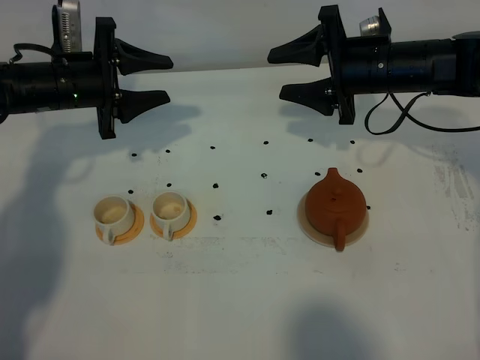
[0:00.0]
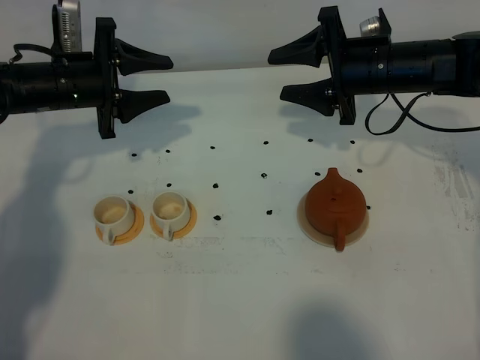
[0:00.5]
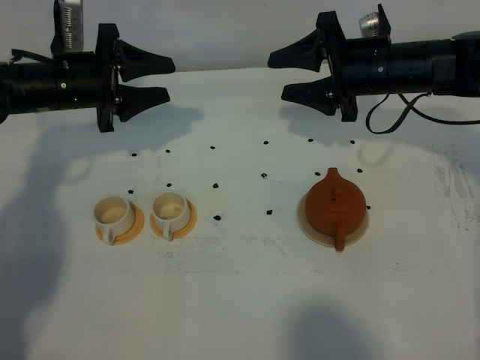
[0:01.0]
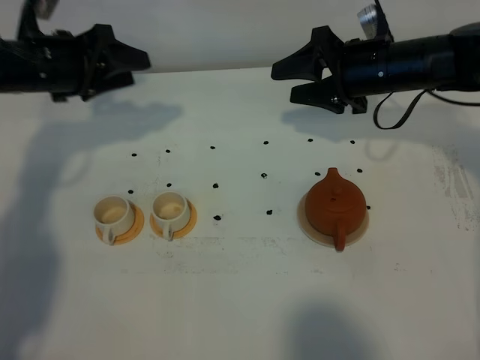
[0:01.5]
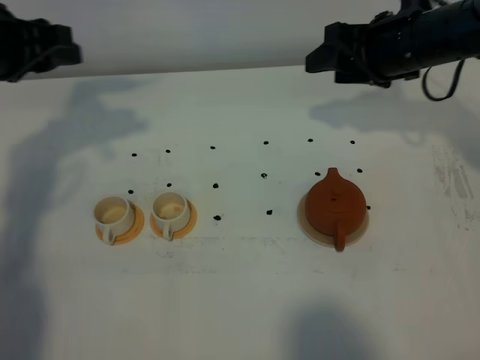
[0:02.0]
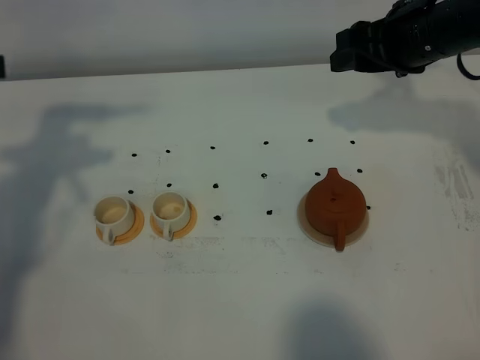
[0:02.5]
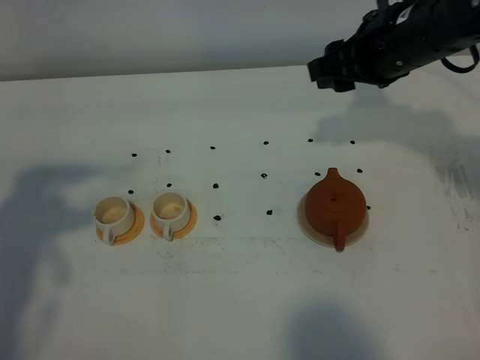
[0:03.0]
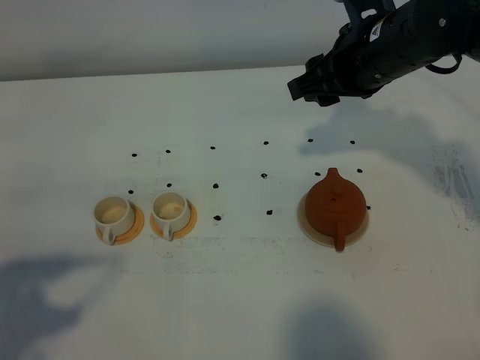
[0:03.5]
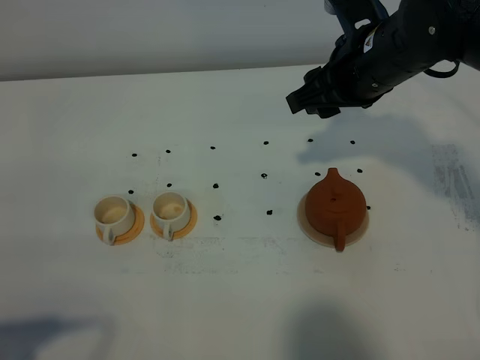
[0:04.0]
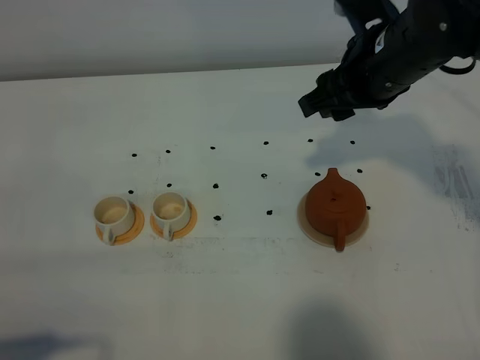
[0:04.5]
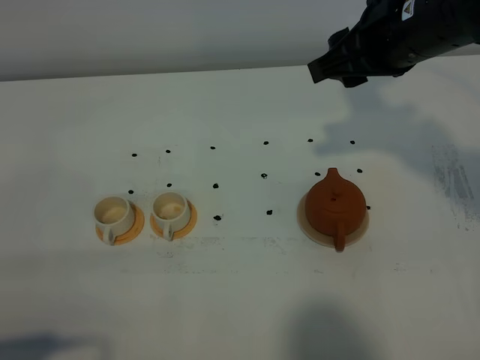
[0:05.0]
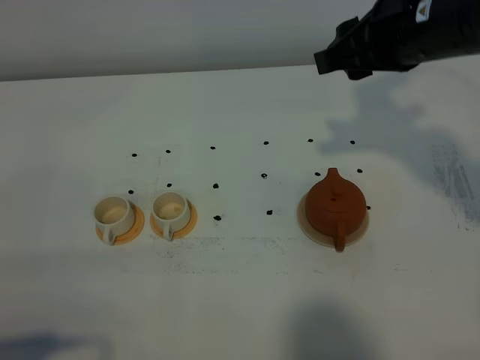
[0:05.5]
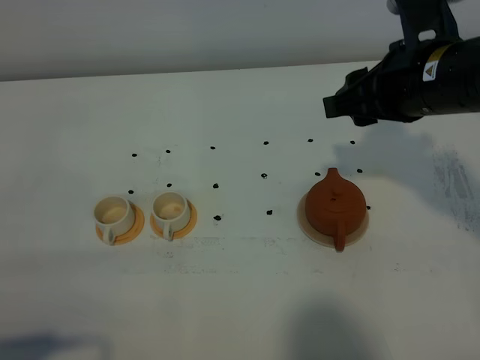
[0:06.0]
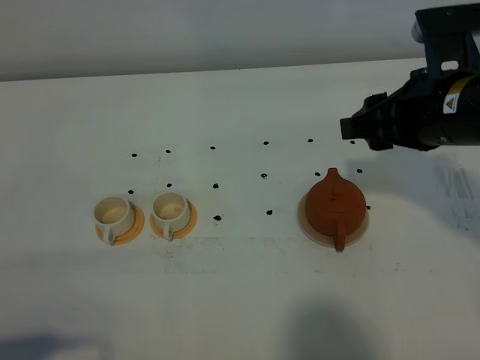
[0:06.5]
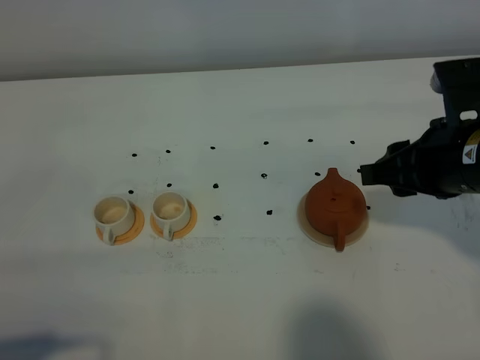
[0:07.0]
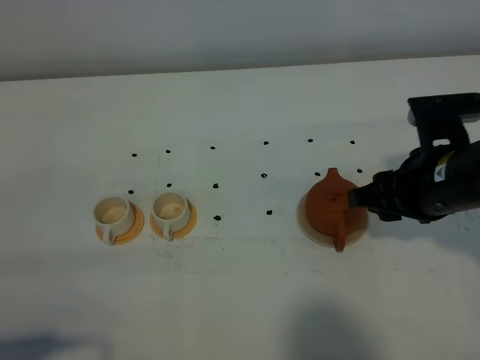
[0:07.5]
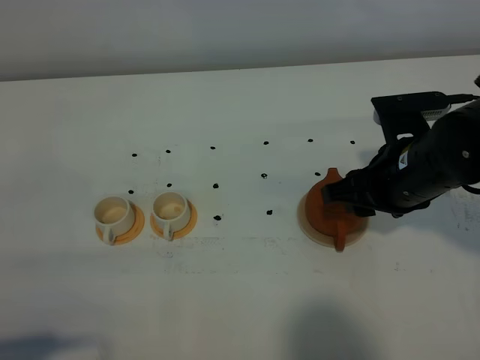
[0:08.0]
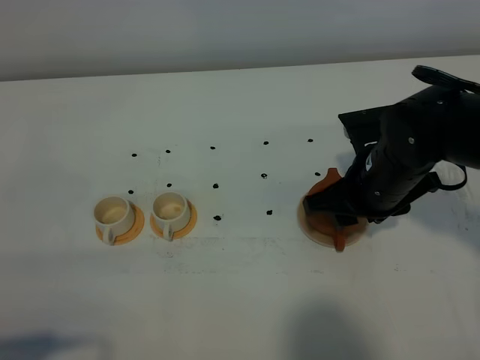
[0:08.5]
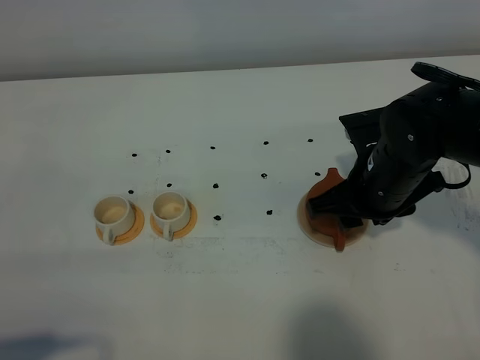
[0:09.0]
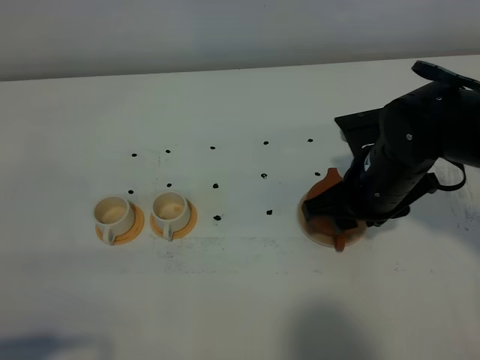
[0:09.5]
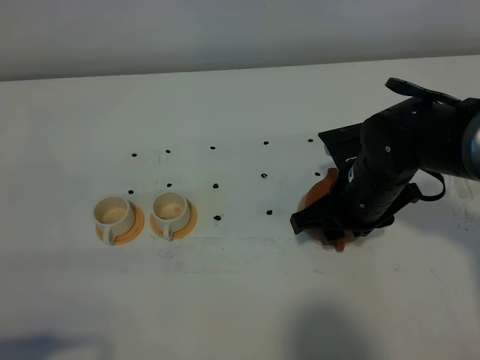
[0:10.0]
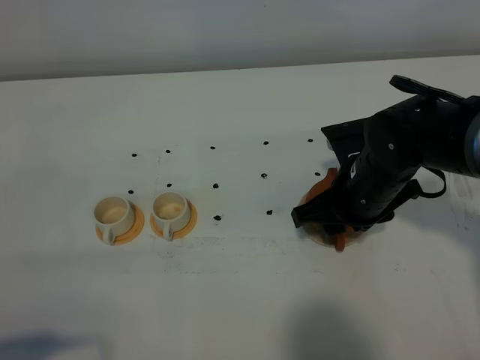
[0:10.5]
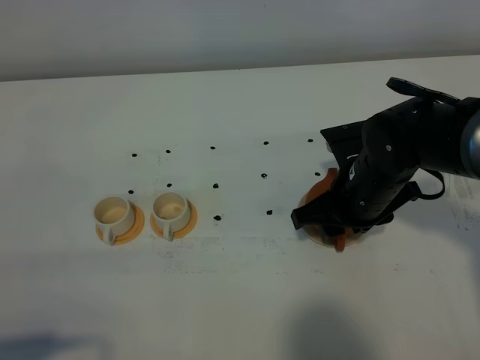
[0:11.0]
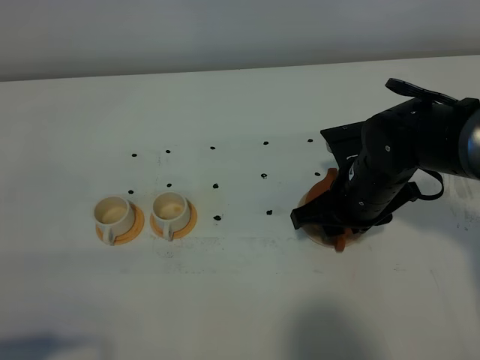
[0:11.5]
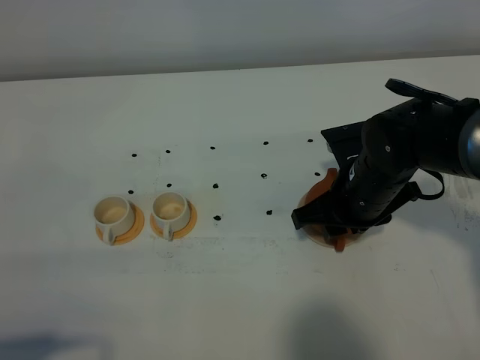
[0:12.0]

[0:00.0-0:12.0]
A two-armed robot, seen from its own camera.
Task of the whole recording: grasp the brown teapot and pour the tea into the two white teacups one by one, put the brown teapot back in its original place.
0:00.0 to 0:02.0: The right gripper ends up some 5 cm from where it was. The left gripper moves upward and backward, some 15 cm, and closes up.
0:02.0 to 0:04.0: The right gripper moves to the left and backward, some 10 cm. The left gripper travels backward by approximately 35 cm, and closes its fingers.
0:04.0 to 0:06.0: The right gripper moves backward, about 5 cm.
0:06.0 to 0:08.0: The right gripper is displaced downward by approximately 10 cm.
0:08.0 to 0:10.0: The right gripper ends up some 5 cm from where it was.
0:10.0 to 0:12.0: Both grippers stay about where they are.

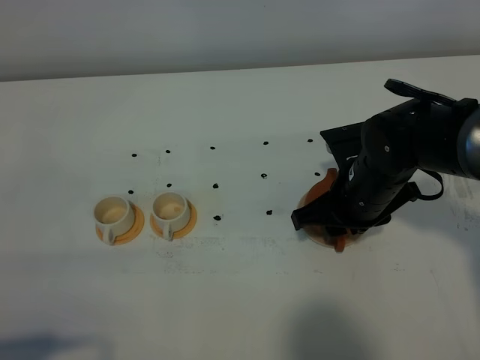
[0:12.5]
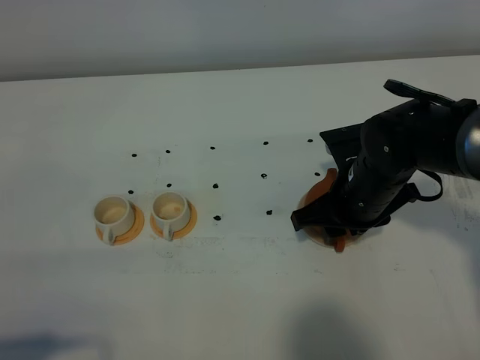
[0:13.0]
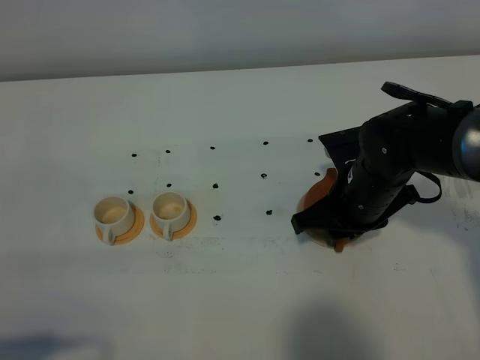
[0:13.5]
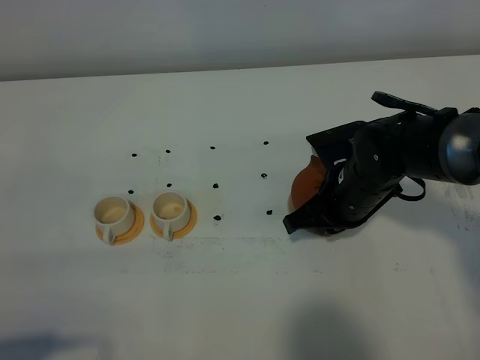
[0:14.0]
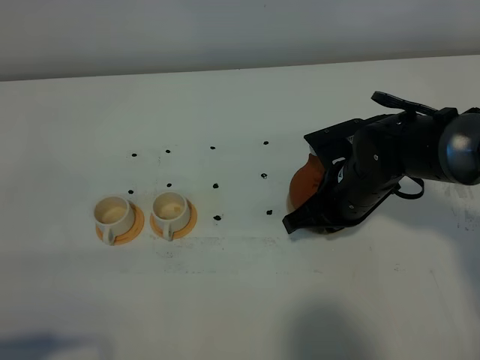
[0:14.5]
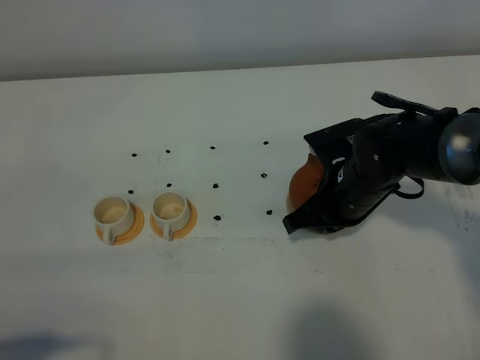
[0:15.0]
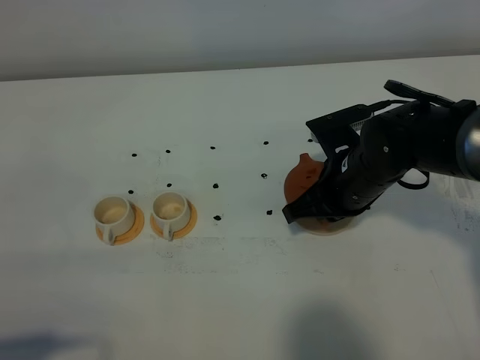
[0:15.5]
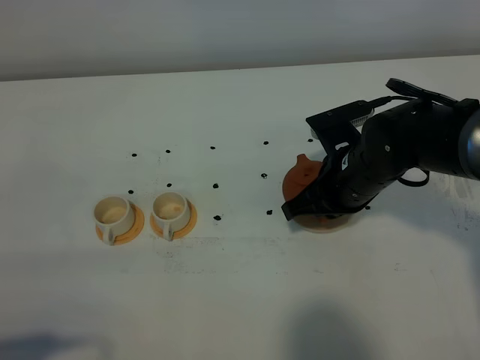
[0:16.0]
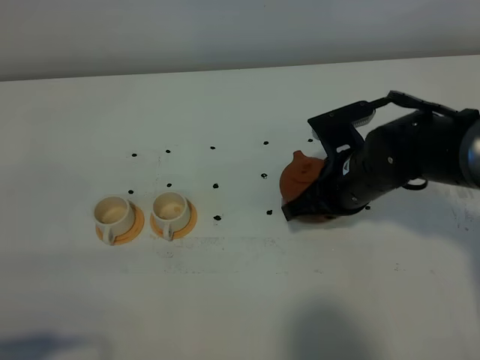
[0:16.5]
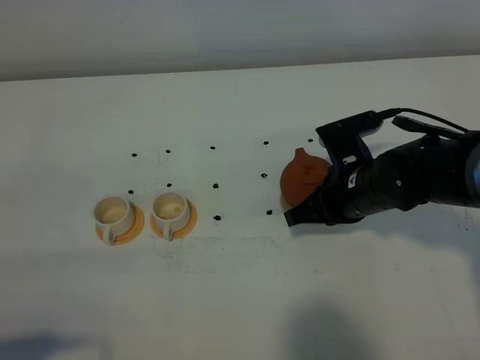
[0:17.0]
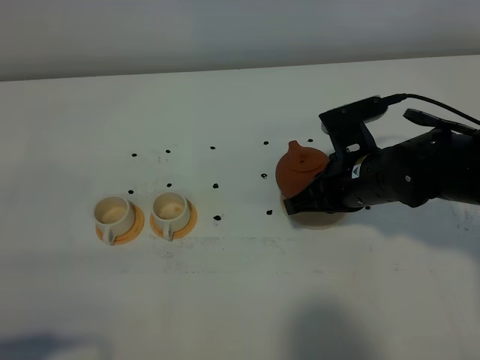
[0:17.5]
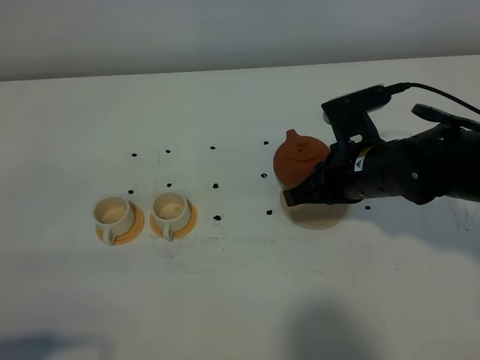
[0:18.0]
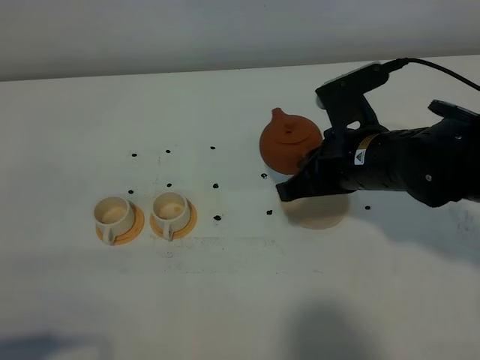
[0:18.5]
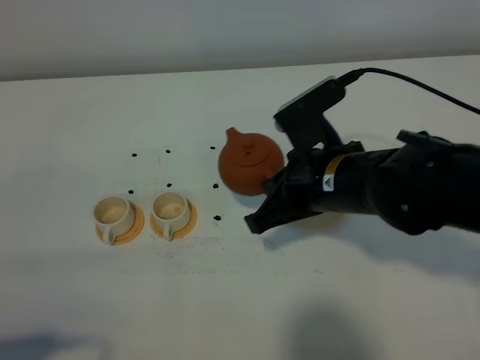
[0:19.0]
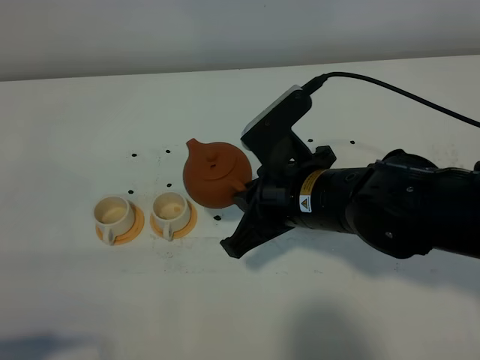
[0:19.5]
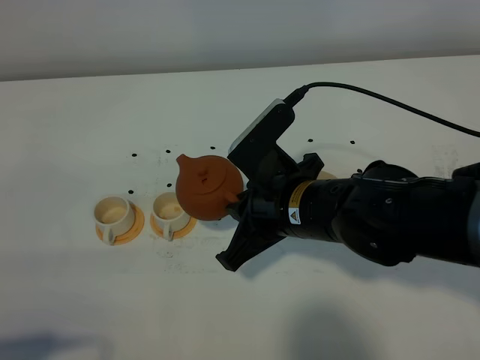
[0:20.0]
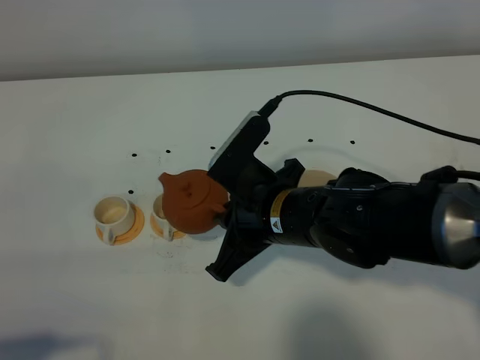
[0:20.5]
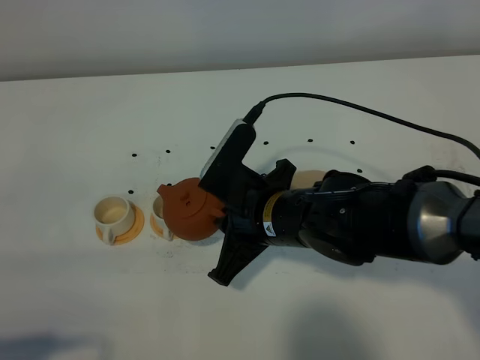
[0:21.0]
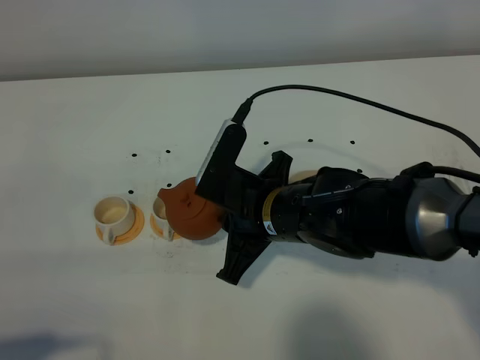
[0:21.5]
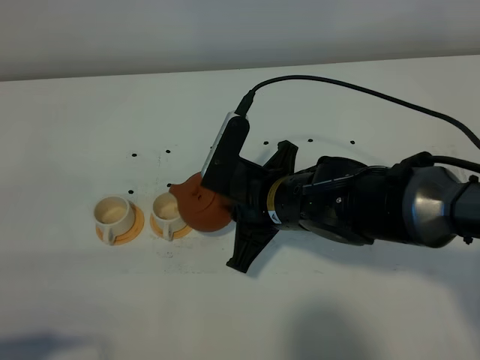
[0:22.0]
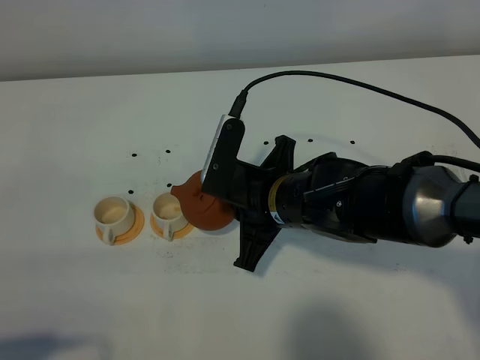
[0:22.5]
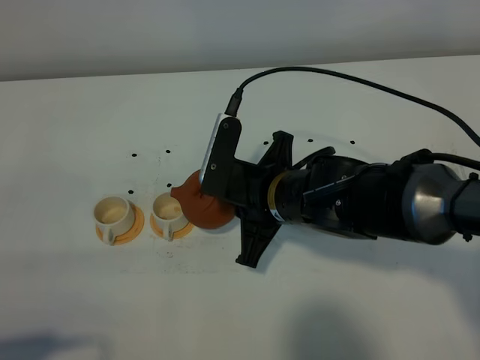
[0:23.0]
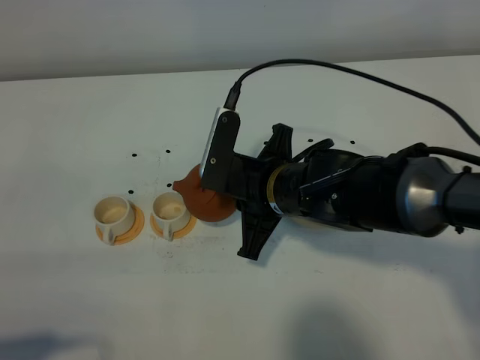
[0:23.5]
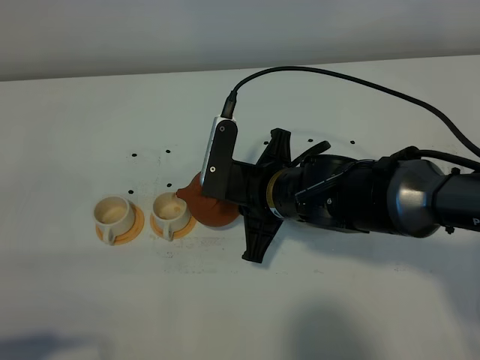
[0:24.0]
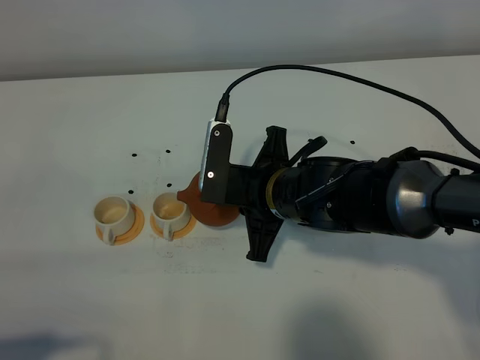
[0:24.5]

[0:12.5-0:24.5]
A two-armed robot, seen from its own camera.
Task of the whole recording: grasp the brown teapot and pour the tea into the two white teacups one by one, put the brown teapot back in its original place.
Step, 0:12.5 to 0:17.5: Pick up the teapot with the right gripper.
0:12.5 to 0:14.5: The right gripper closes up.
0:14.5 to 0:16.5: There are only small adjustments of the grippers.
0:16.5 to 0:18.5: The right gripper moves upward, some 5 cm.
0:18.5 to 0:20.5: The right gripper heads to the left, covering some 10 cm.
0:22.5 to 0:24.5: The grippers make only small movements.

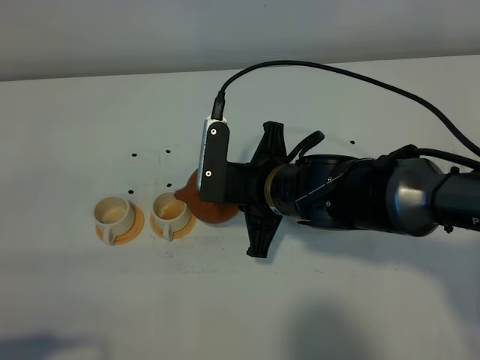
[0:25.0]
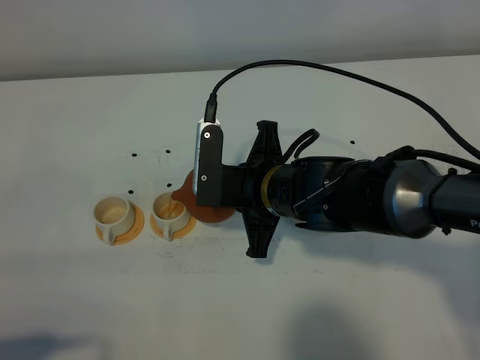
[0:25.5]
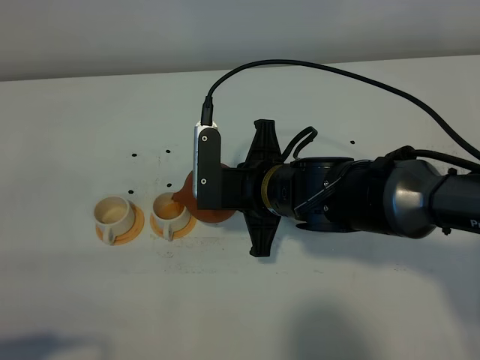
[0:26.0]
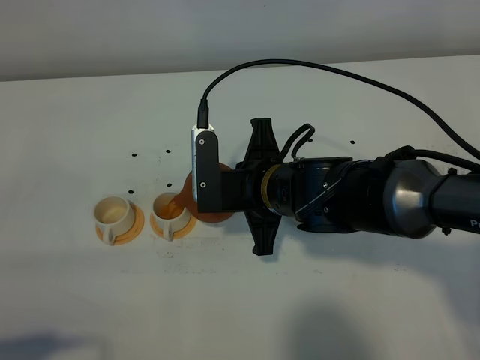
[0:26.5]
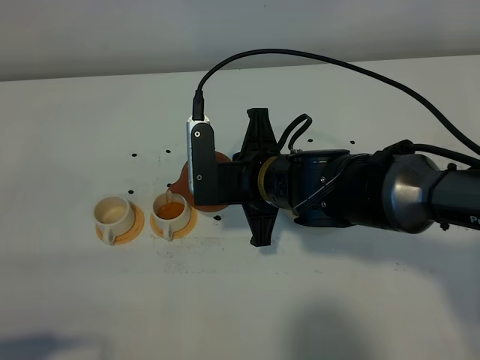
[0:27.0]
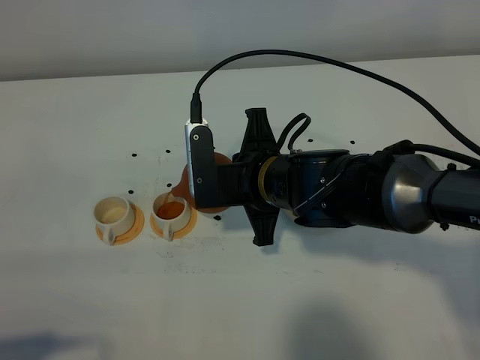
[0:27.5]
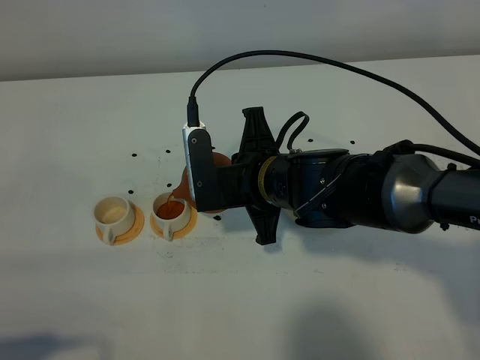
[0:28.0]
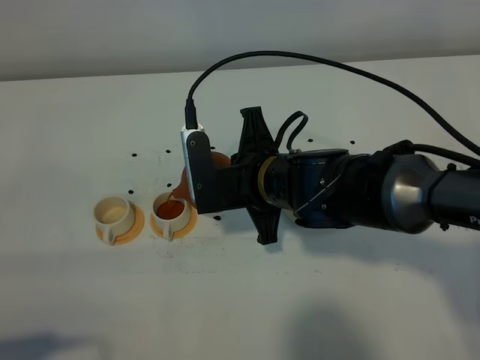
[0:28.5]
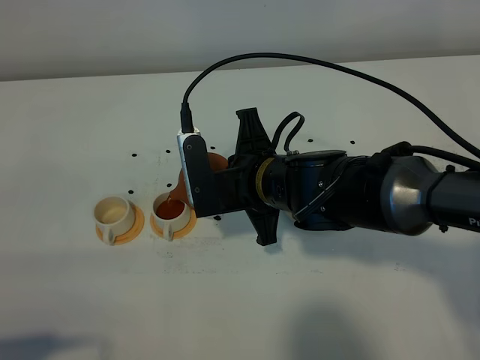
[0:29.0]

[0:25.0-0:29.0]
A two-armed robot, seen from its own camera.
Task of the whole recording: grasp the brown teapot and pour the tea into the two white teacups one by one, put the brown teapot back in its original place.
0:25.0 to 0:29.0: The grippers move only a little.
